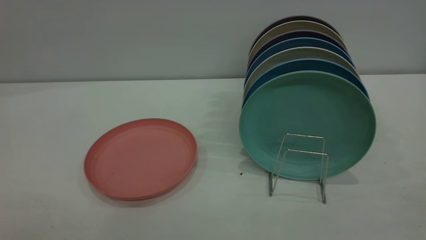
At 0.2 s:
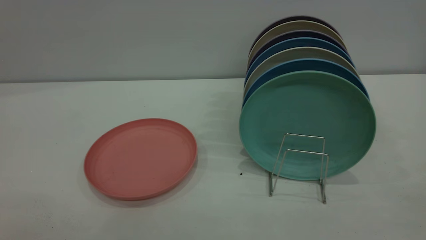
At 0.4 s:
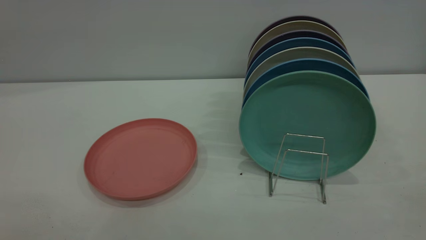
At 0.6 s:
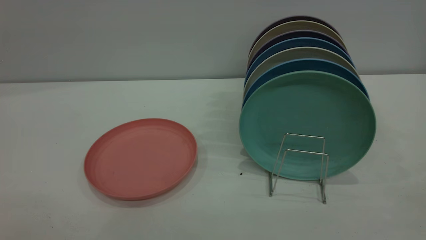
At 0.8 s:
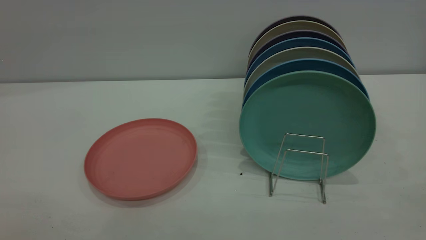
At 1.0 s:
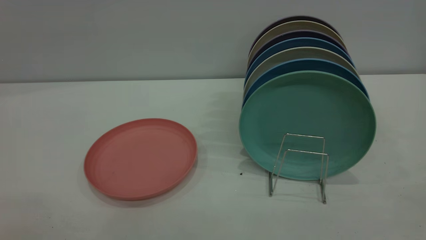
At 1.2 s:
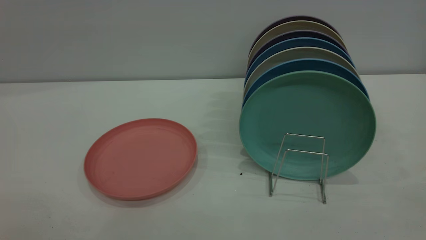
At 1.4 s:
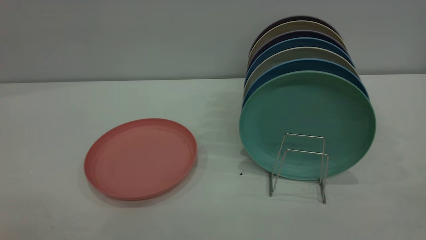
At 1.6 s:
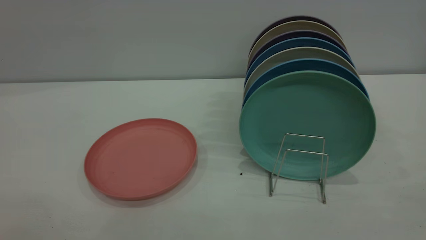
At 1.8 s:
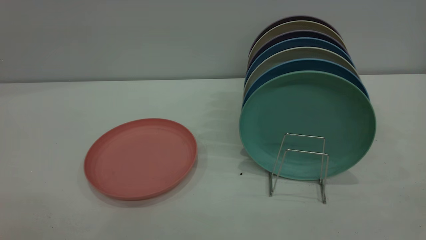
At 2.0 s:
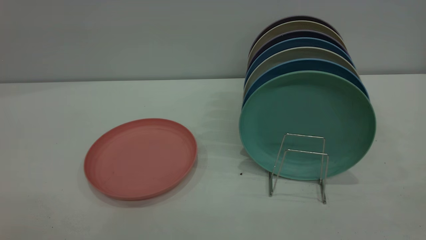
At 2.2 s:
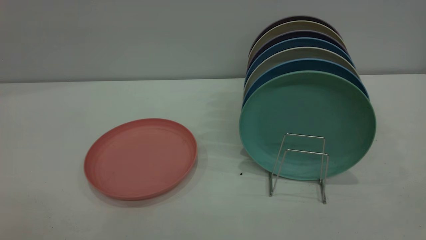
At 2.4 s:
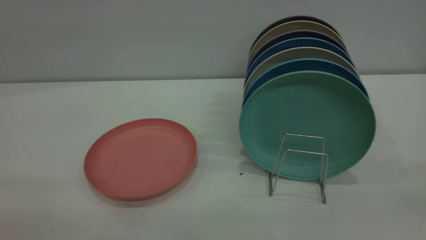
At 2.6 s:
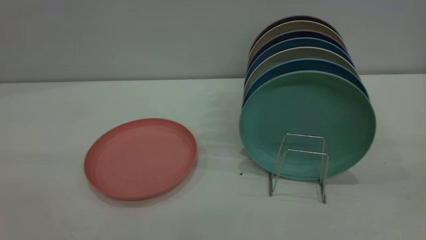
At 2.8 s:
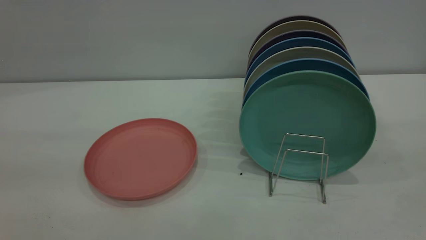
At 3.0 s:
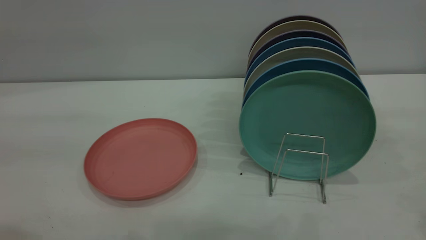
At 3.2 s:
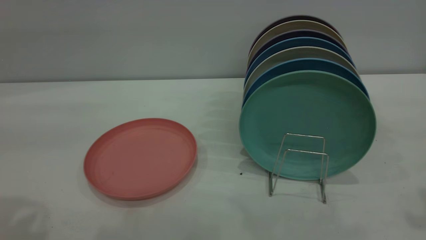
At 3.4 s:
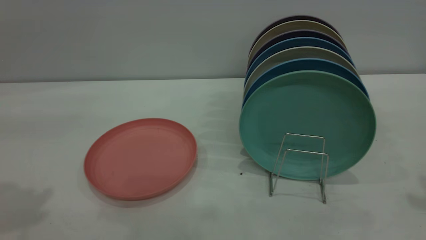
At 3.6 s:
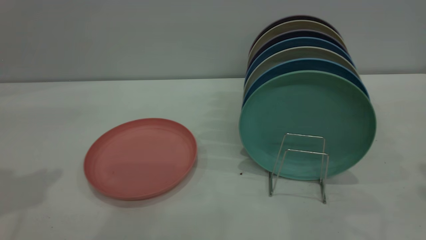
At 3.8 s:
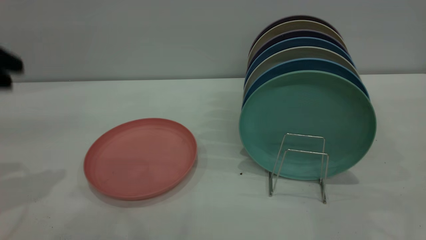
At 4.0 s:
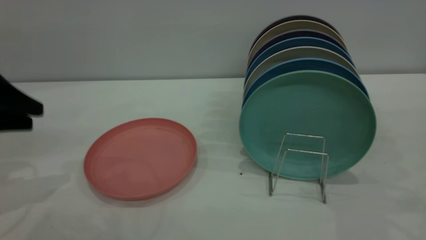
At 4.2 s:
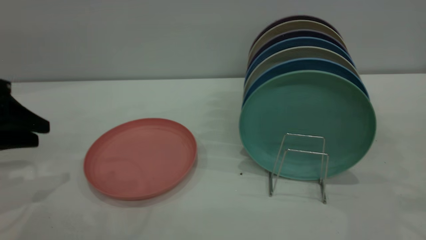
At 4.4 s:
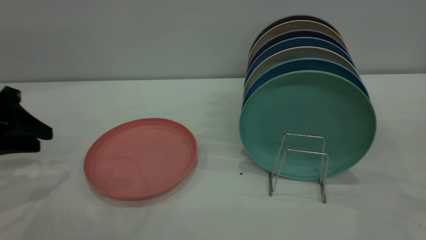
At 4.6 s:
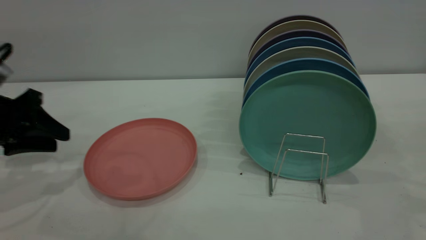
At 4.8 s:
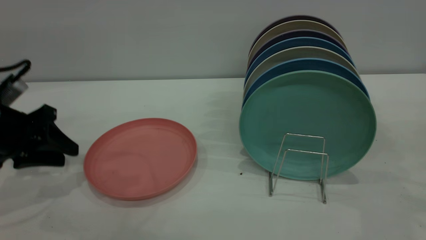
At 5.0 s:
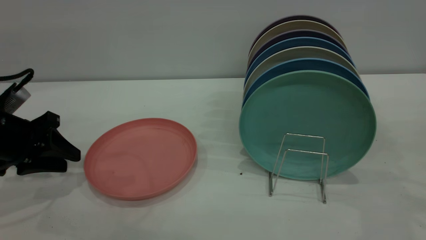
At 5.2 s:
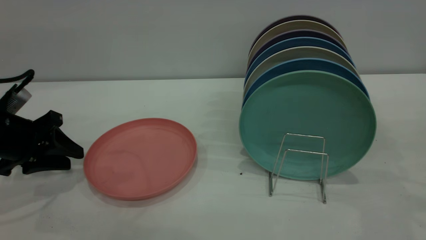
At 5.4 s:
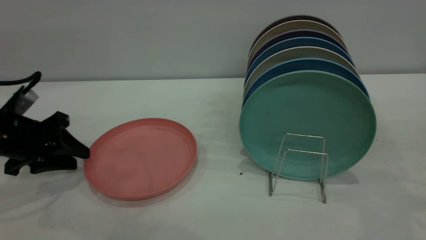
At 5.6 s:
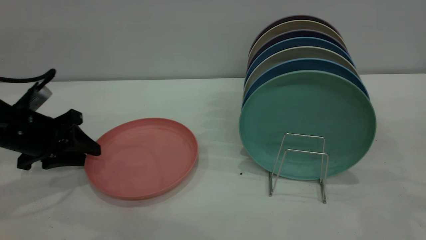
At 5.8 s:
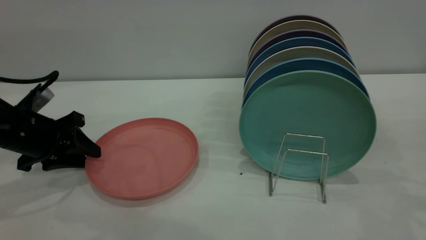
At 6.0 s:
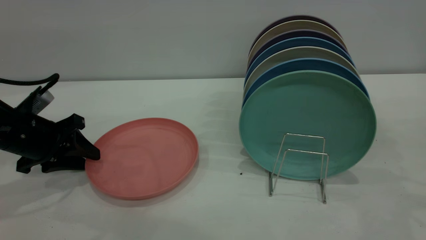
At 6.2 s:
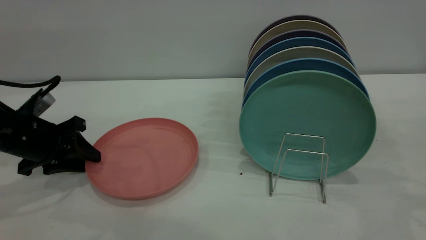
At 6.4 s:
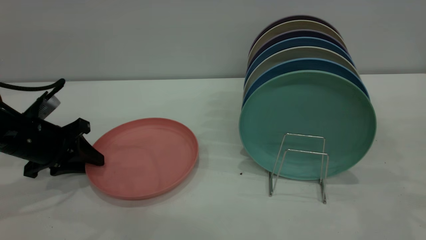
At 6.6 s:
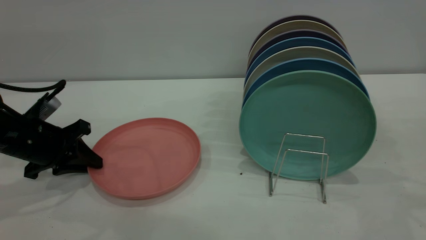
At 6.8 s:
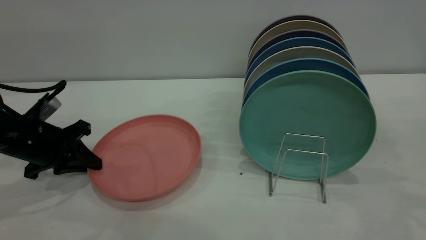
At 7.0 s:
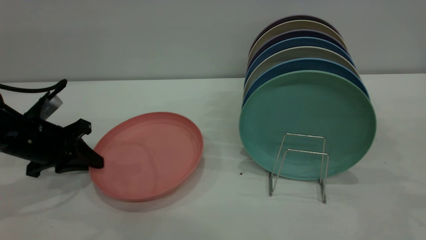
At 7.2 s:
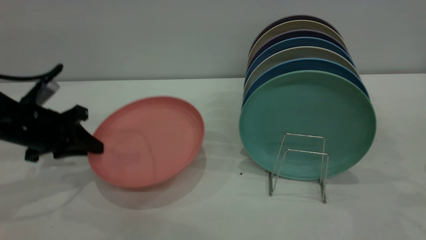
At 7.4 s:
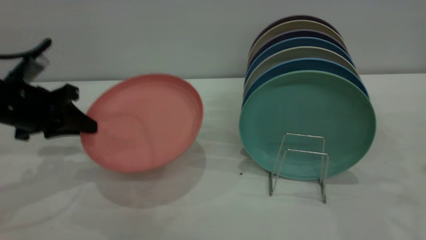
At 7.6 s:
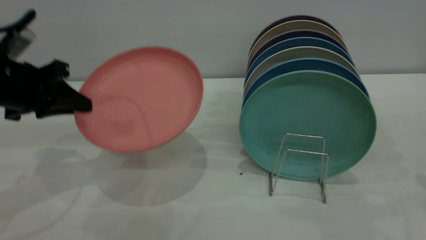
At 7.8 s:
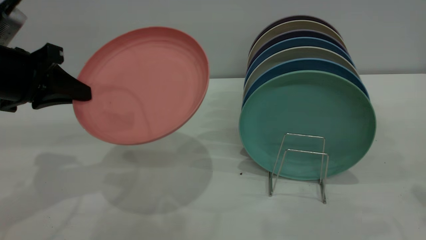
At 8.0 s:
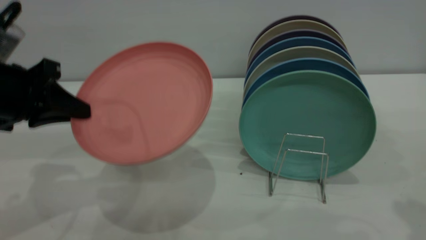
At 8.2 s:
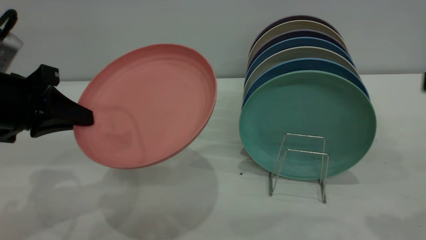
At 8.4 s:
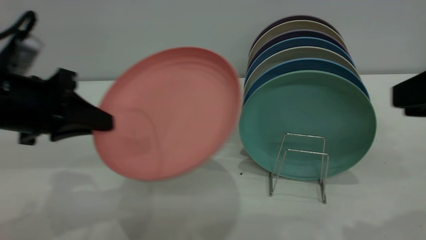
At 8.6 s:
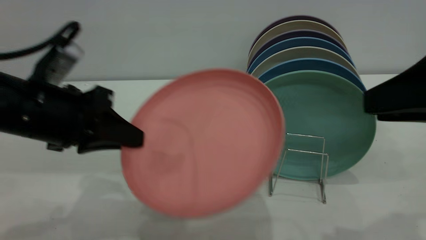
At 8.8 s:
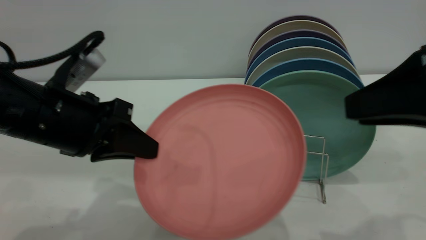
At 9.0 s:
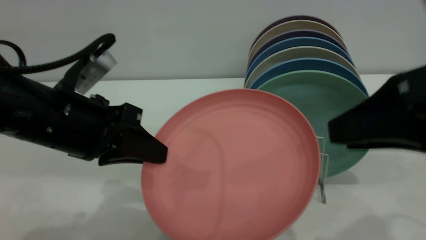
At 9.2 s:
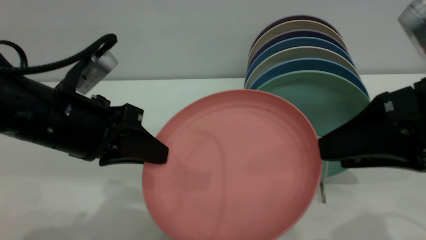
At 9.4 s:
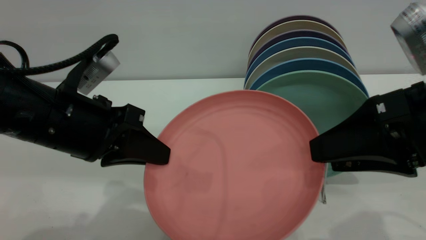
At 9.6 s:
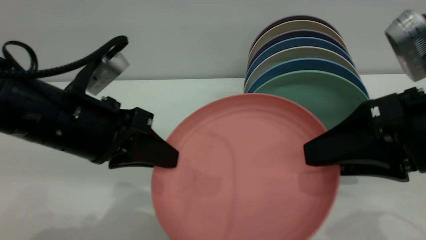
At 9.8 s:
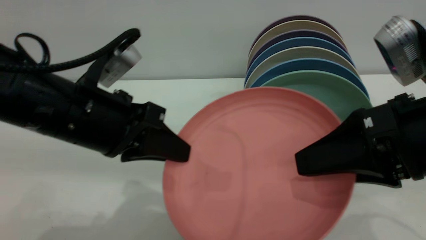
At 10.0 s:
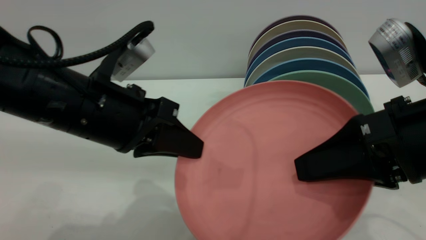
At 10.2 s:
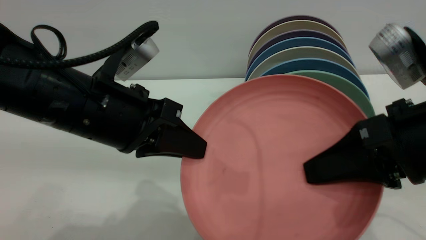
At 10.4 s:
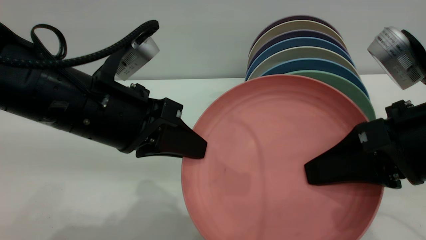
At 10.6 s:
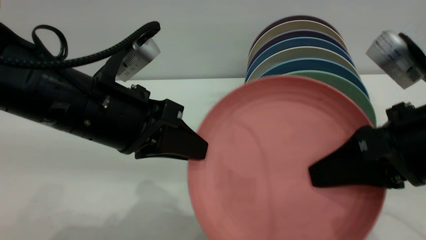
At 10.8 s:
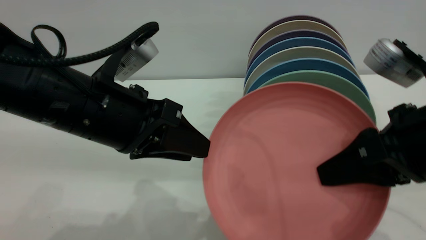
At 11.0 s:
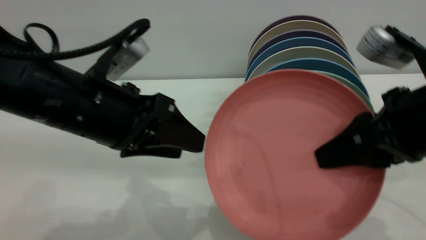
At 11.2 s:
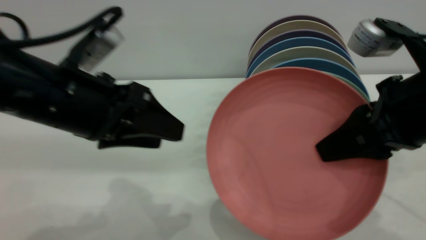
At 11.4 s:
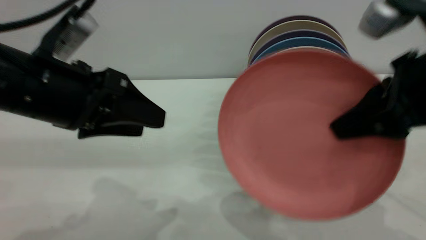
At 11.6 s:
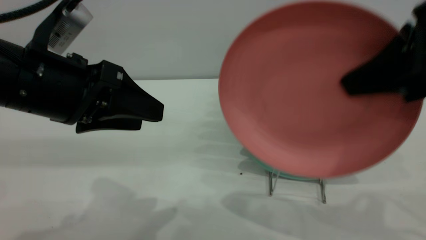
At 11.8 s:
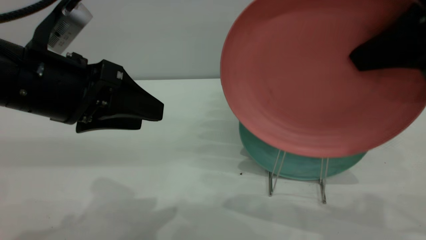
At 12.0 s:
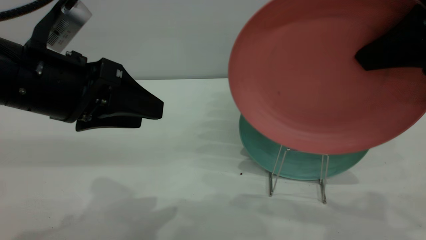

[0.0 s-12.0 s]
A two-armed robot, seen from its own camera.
Task of the whole recording: put the plate on the plate rack.
Step, 0.0 to 7.0 s: Pick up the plate with the left gripper.
Step, 7.2 to 11.2 s: Pass the plate from the left gripper to the right gripper.
0.0 to 1.6 s: Neither gripper changes place.
3.0 to 4.4 s: The left gripper goes approximately 25 cm downward and forward.
4.4 to 6.0 s: The left gripper shifts roughly 5 cm downward.
6.0 to 7.6 s: The right gripper changes place by some 5 cm, while the left gripper heads upward, covering roughly 10 cm, and closes up.
7.6 to 9.0 s: The right gripper goes about 15 cm to the left, while the left gripper travels to the right and backward by approximately 15 cm.
9.0 to 10.4 s: The right gripper closes its fingers.
10.4 to 12.0 s: The left gripper shifts approximately 5 cm to the left, and opens its fingers; the right gripper travels upward by roughly 10 cm.

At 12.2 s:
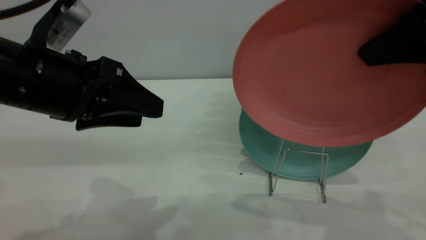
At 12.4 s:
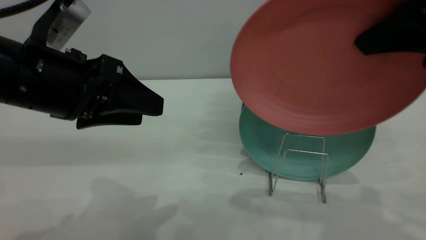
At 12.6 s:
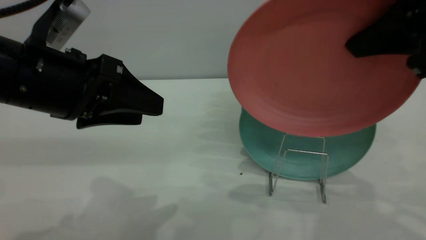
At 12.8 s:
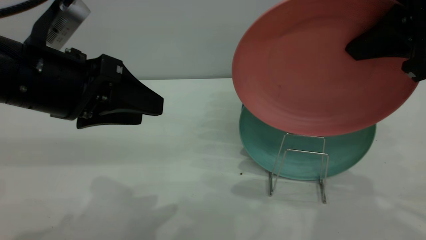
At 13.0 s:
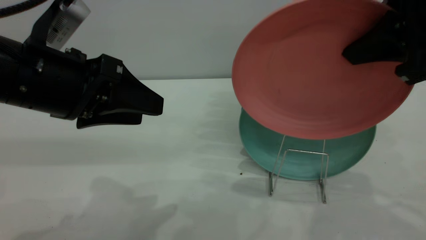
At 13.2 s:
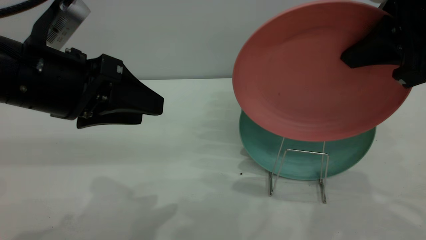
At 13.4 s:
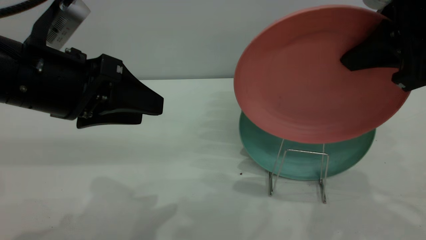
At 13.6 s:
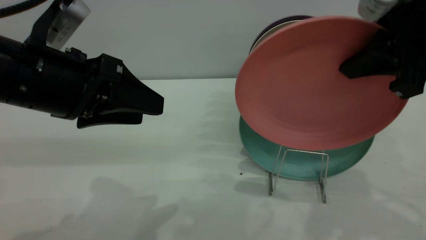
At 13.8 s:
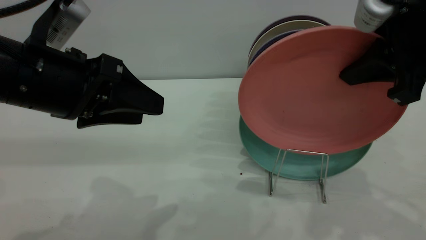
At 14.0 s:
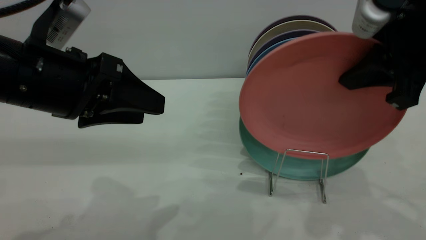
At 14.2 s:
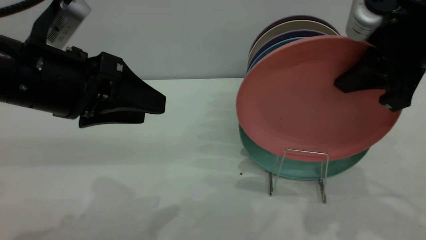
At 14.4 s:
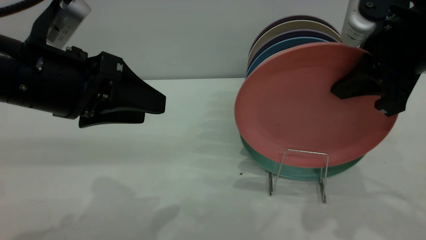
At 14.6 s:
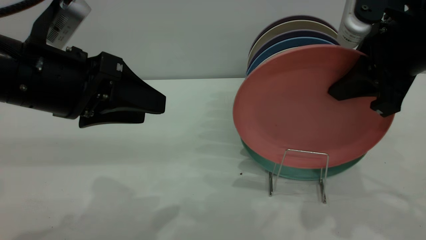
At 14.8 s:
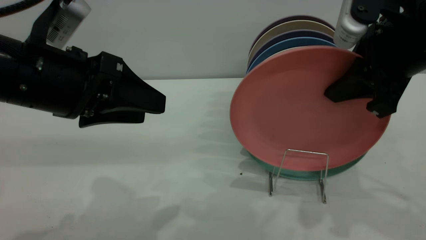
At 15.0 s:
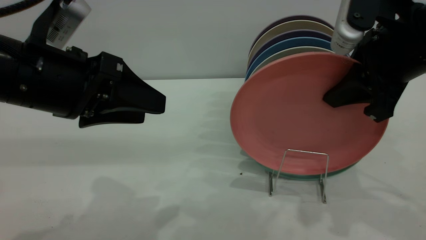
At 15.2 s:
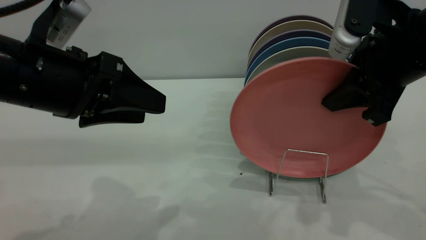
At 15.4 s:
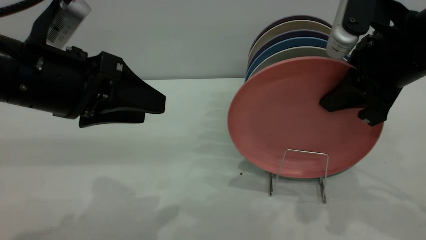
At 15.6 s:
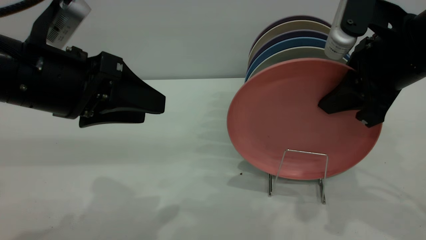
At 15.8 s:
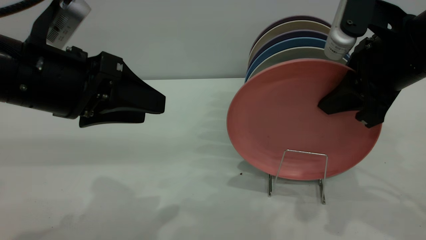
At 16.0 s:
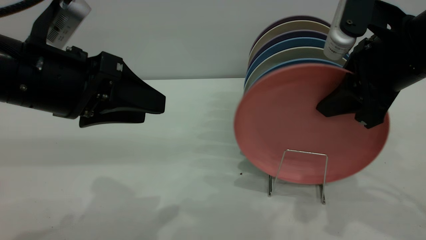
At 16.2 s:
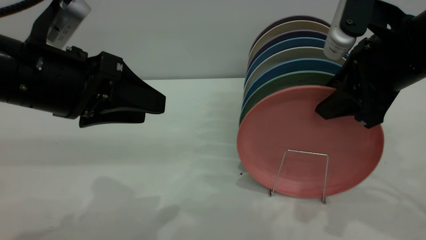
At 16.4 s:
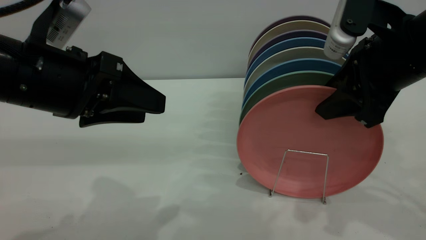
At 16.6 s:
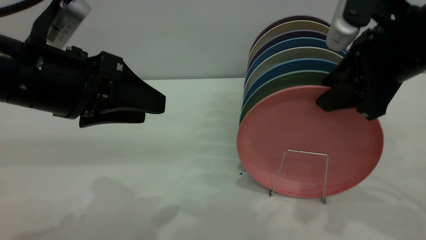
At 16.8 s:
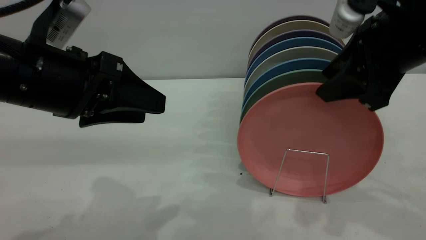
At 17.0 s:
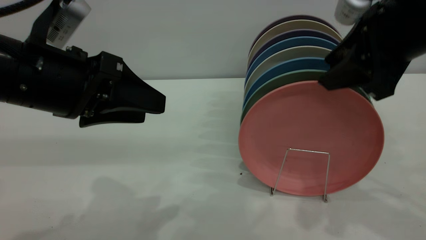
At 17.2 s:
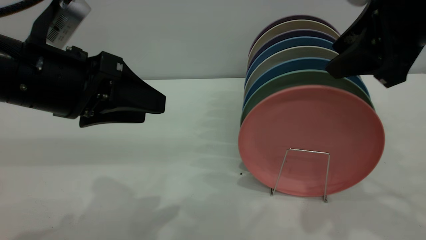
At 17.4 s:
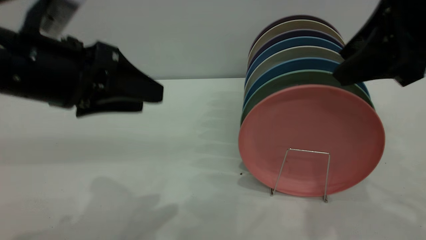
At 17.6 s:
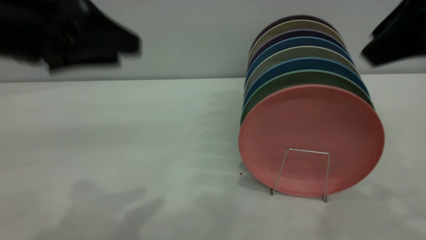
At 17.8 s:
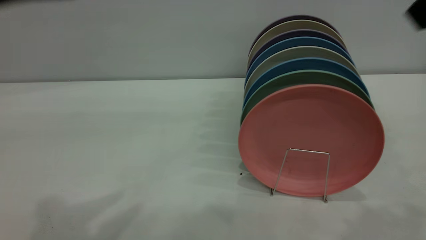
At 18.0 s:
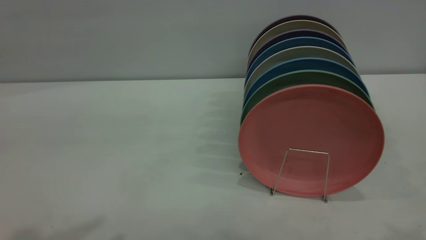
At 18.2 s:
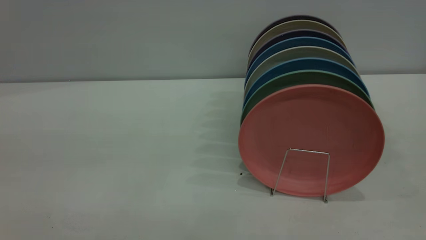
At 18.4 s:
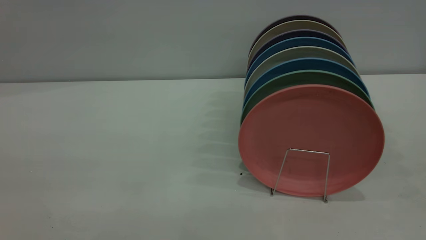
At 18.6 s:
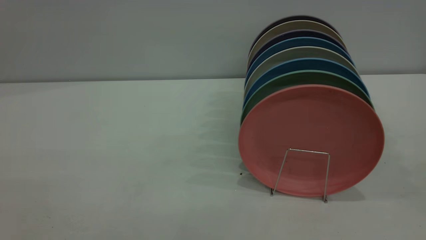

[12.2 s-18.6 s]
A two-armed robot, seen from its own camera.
Task of the whole recording: put the plate on the plate rack.
Step, 12.2 to 17.6 s: Place the plate on the shelf.
12.2 to 13.8 s: The right gripper ends up about 5 cm from where it was.
13.8 to 15.4 s: The grippers stay close to where they were, moving slightly.
15.4 to 17.0 s: The right gripper opens up.
17.0 to 18.6 s: The right gripper moves backward and upward, approximately 25 cm. Meanwhile the left gripper moves backward, upward and to the left, approximately 30 cm.
